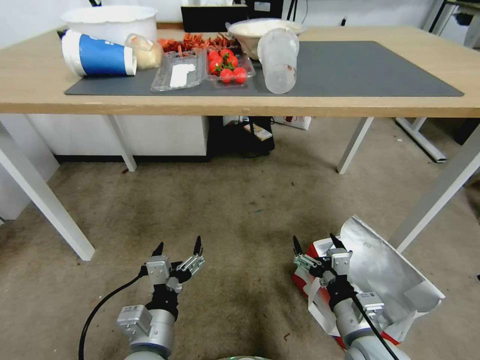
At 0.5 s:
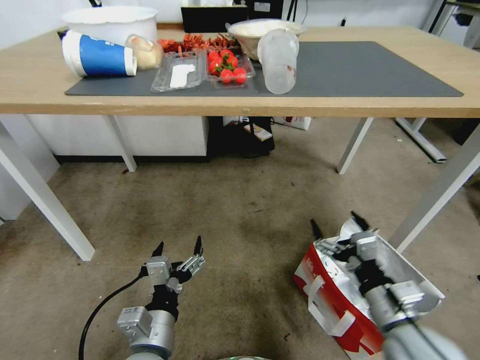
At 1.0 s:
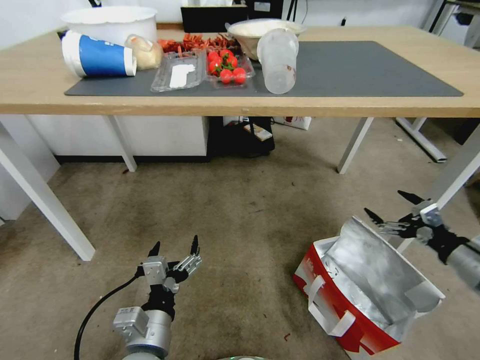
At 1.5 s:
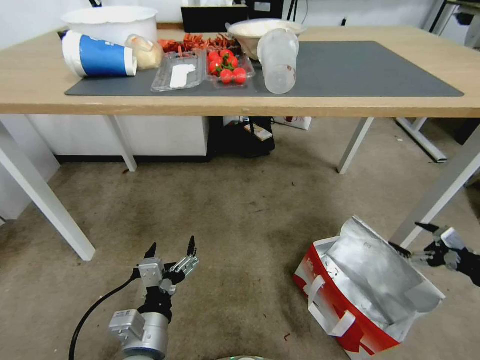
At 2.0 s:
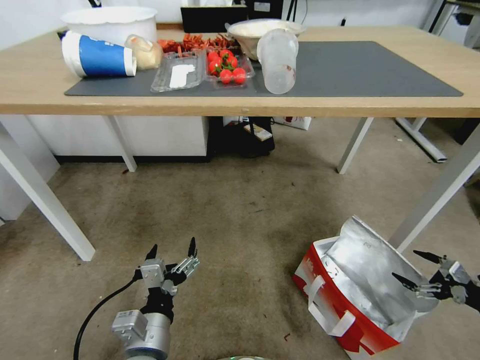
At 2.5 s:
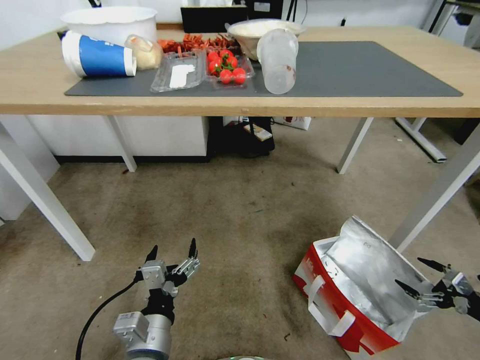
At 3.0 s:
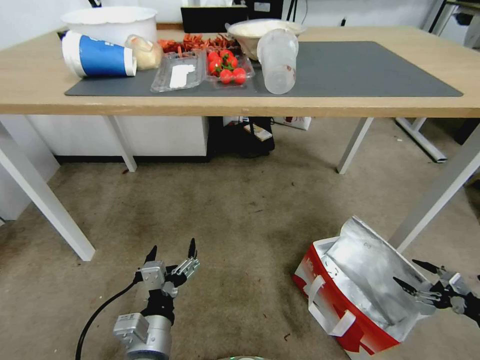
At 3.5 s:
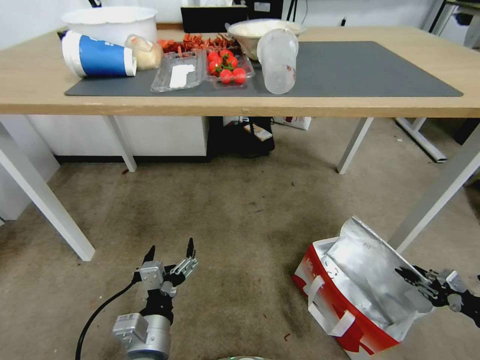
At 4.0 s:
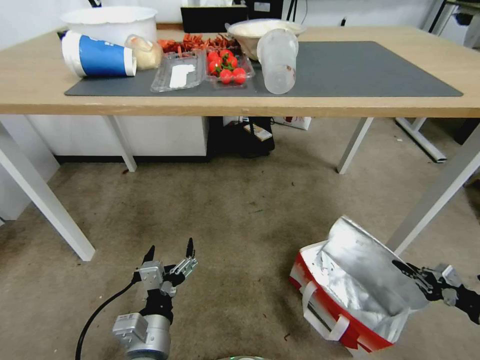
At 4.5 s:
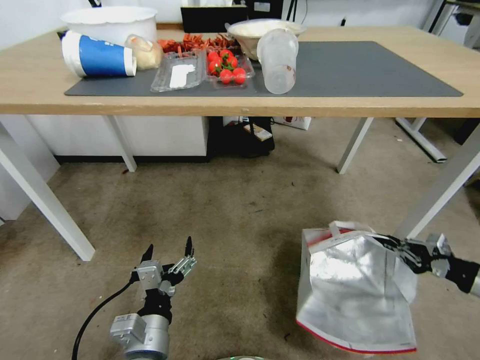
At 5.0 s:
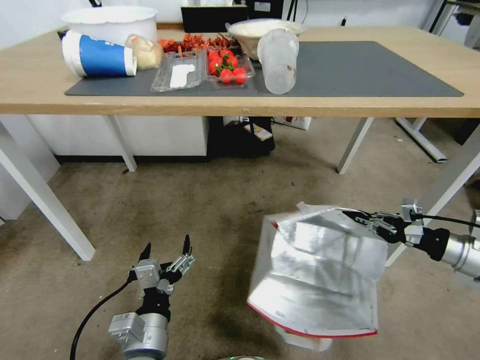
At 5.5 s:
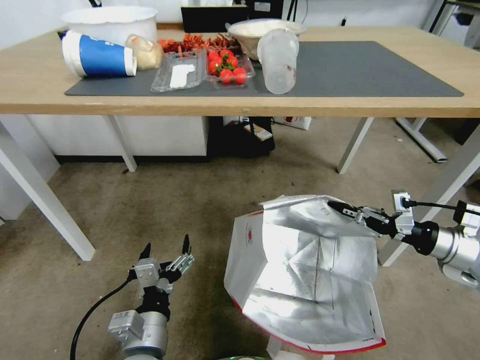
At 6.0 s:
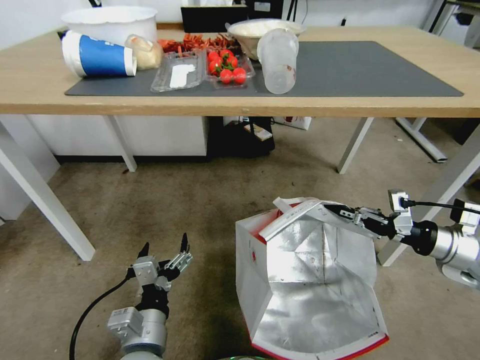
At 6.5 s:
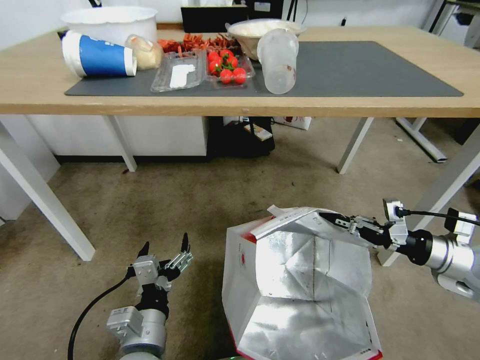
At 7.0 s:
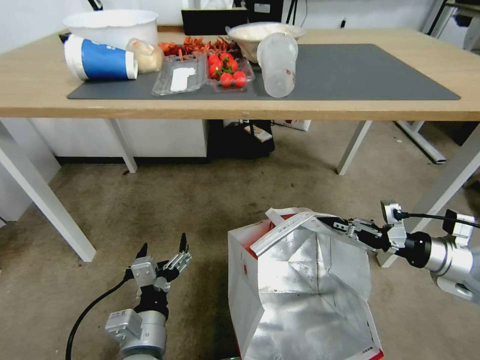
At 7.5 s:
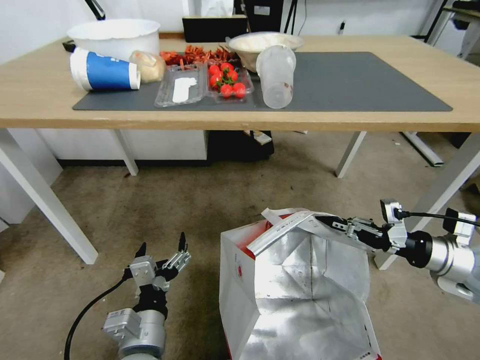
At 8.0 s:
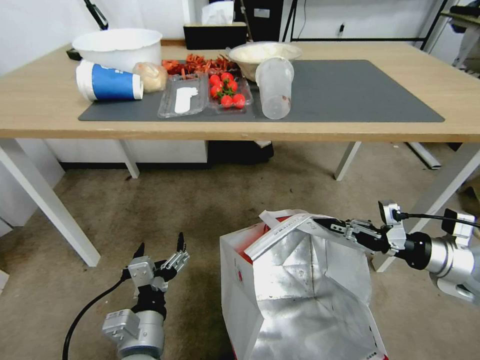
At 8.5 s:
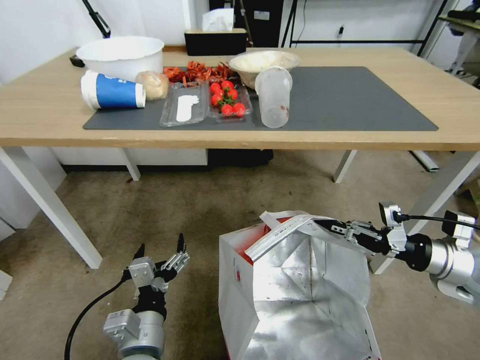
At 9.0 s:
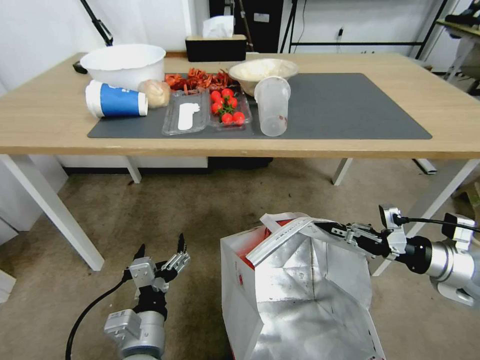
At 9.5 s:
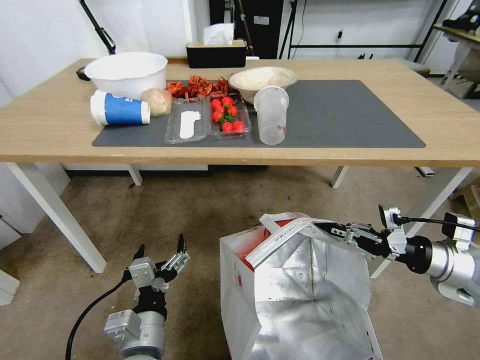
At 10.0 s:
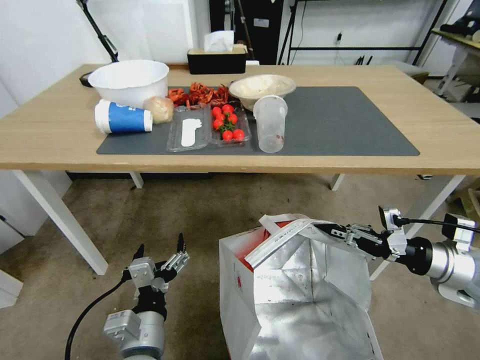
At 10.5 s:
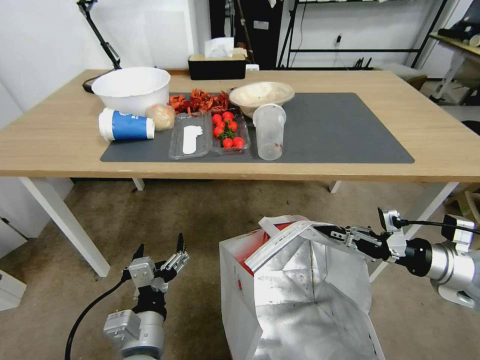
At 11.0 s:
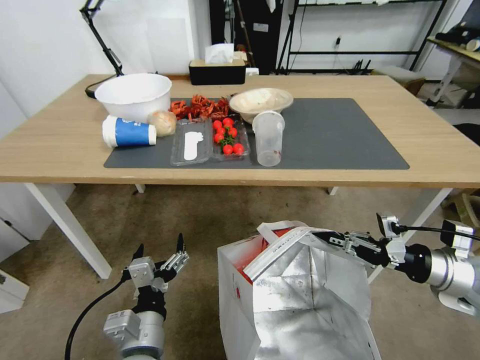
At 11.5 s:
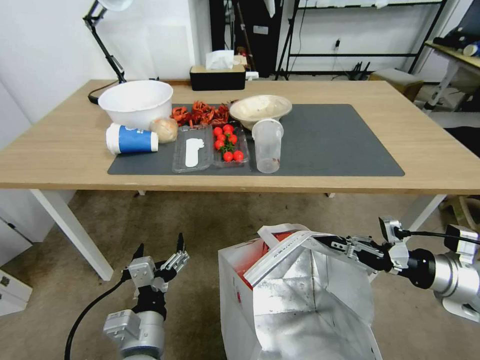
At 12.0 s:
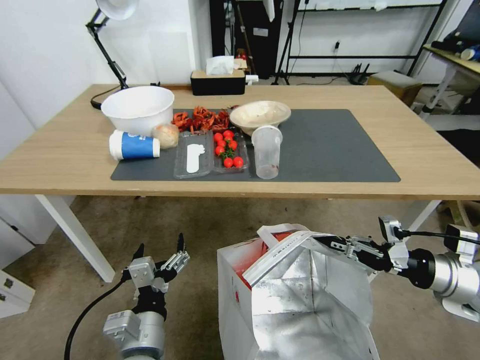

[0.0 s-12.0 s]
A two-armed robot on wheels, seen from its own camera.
Task of the whole recording: Pick up the food delivery bag from the floor and place it on the table.
0.0 to 2.0 s: The right gripper moves to the right, some 35 cm.
2.0 to 4.0 s: The right gripper closes its fingers.
4.0 to 6.0 s: The right gripper shifts roughly 20 cm to the left, upward and forward.

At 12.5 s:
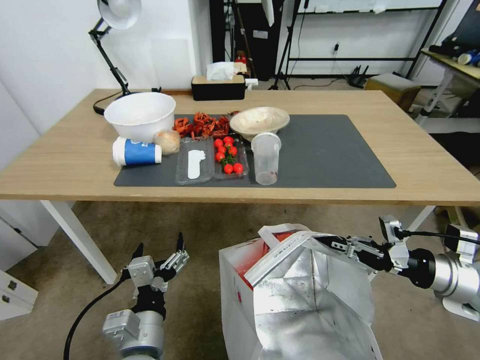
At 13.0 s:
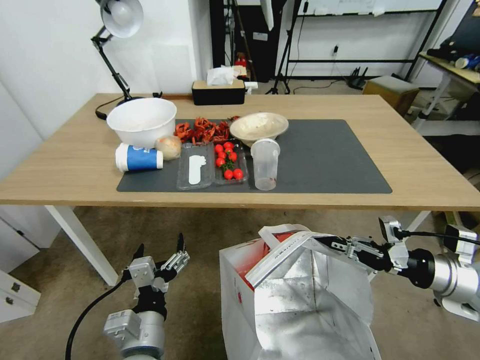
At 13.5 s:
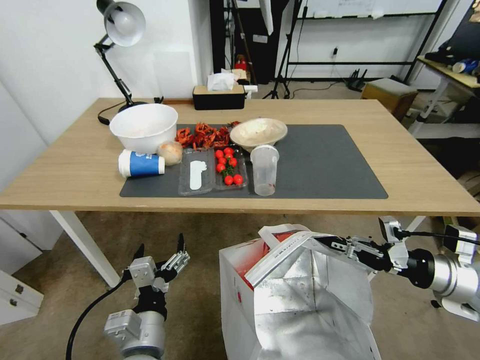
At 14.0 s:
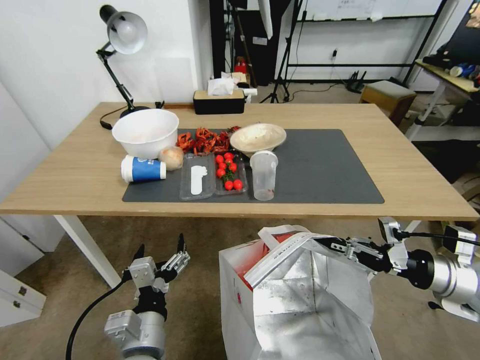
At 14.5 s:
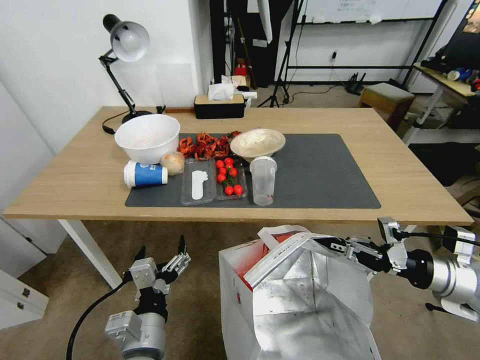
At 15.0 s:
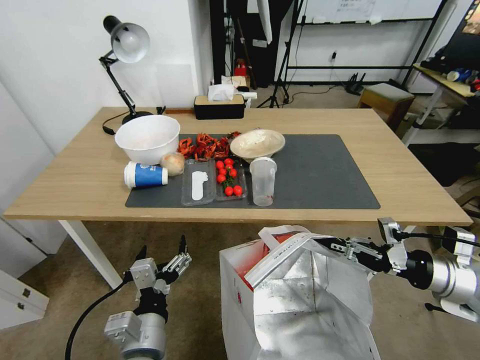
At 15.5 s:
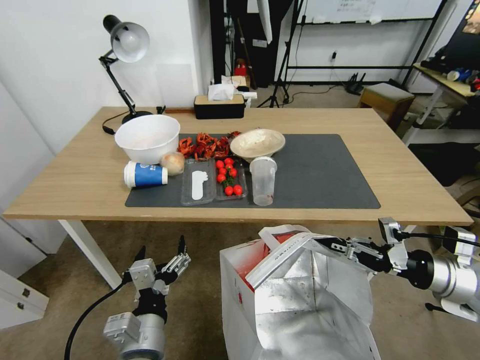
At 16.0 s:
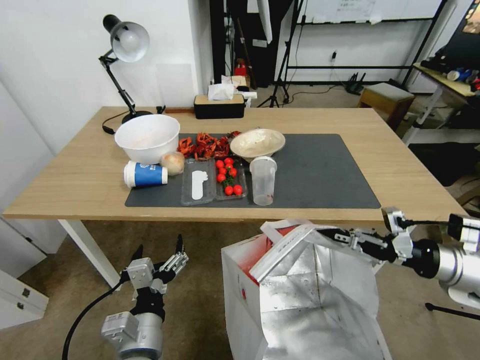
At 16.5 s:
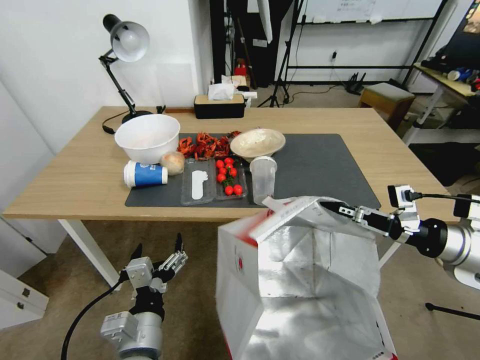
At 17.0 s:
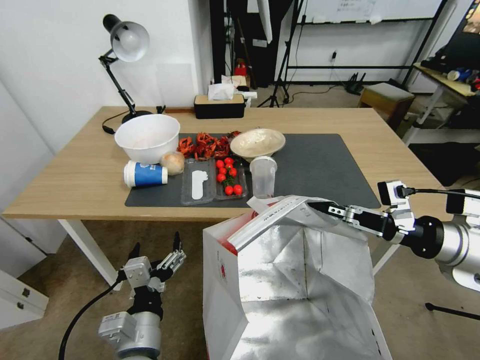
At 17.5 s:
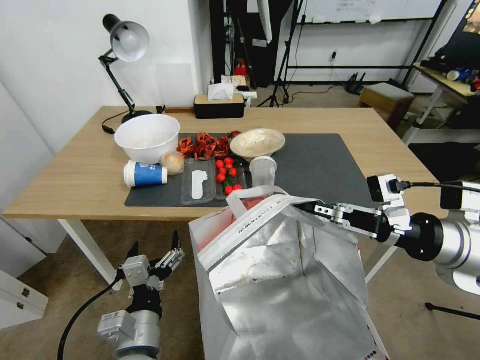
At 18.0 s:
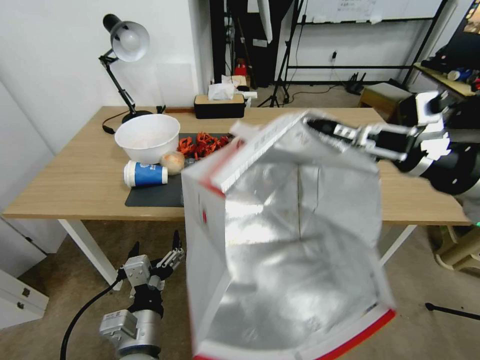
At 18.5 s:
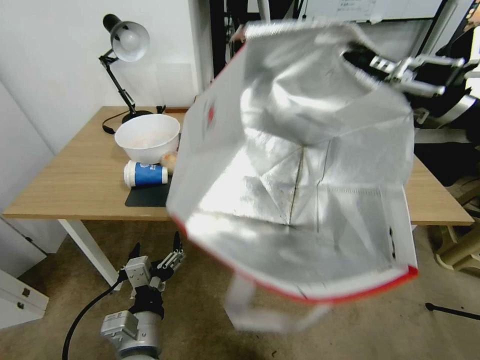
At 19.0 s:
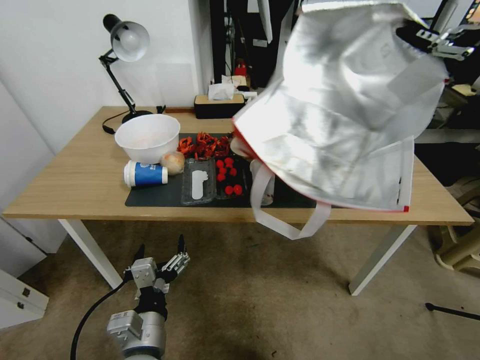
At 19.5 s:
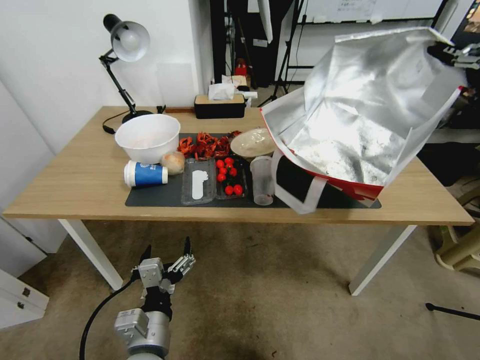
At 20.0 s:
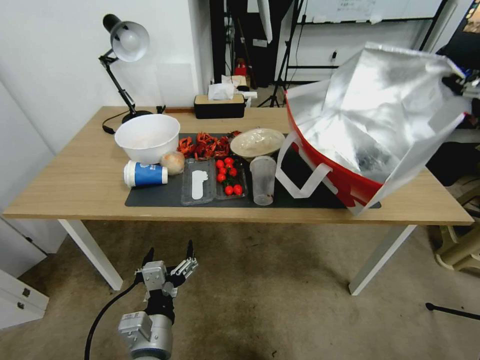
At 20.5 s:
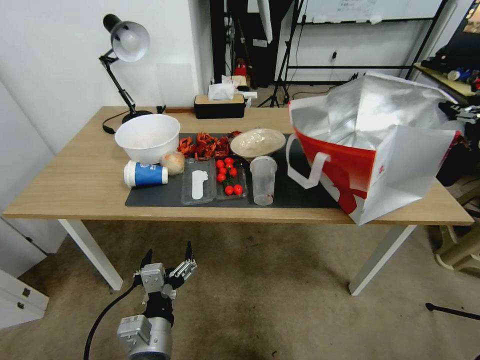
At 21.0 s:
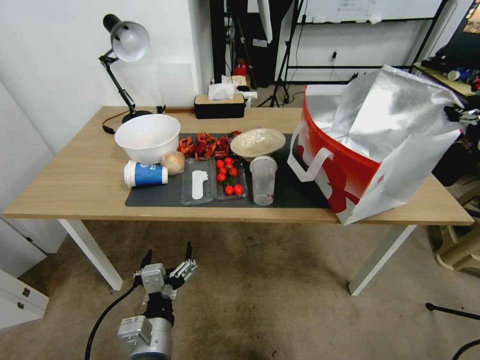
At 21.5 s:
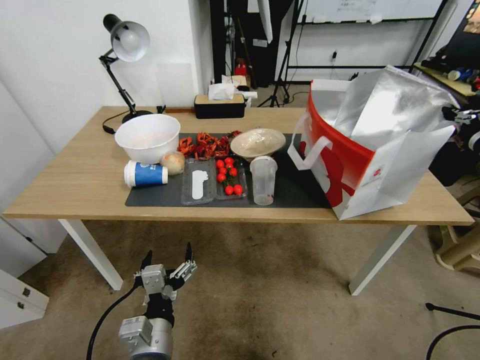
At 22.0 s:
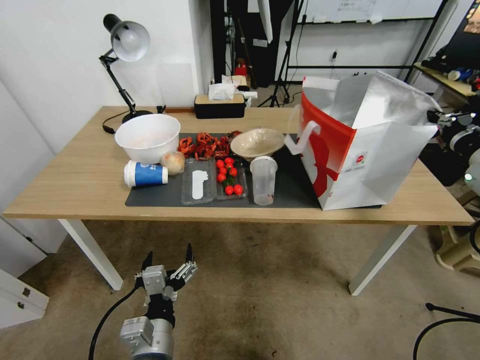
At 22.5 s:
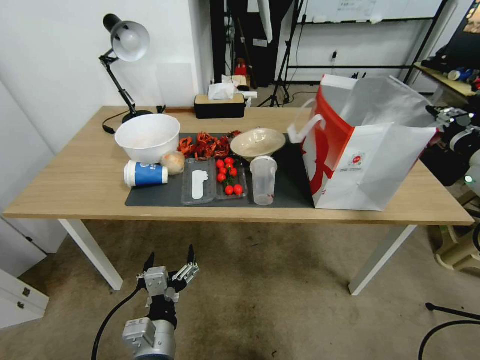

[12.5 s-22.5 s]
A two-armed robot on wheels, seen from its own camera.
Task of the whole recording: Pick up the food delivery bag from the floor and place it on the table.
14.5 to 16.5 s: The right gripper shifts about 5 cm upward.
16.5 to 18.5 s: The right gripper travels upward by some 20 cm.
18.5 to 20.5 s: The right gripper heads to the right and downward, covering some 10 cm.
20.5 to 22.5 s: The right gripper changes place by approximately 5 cm.

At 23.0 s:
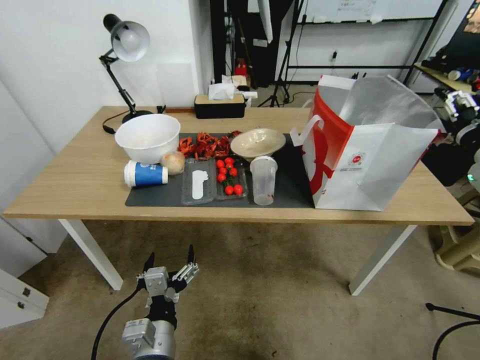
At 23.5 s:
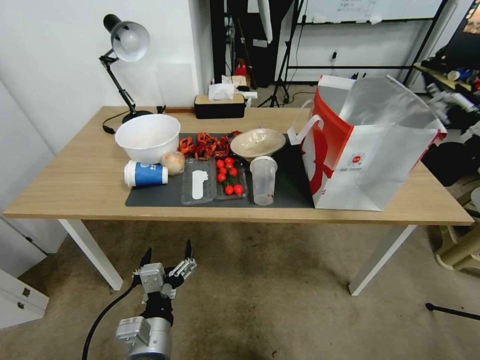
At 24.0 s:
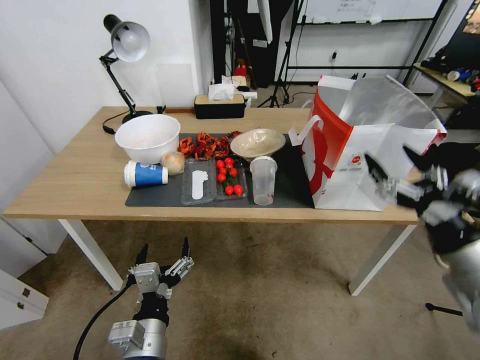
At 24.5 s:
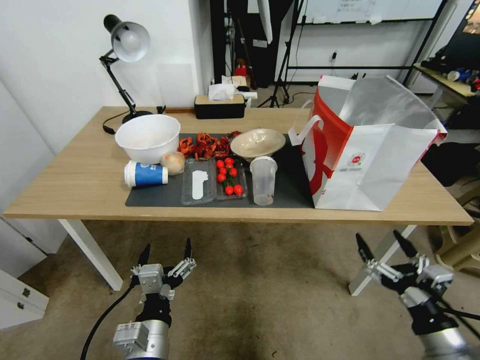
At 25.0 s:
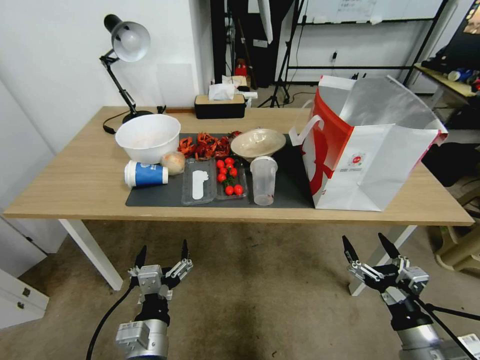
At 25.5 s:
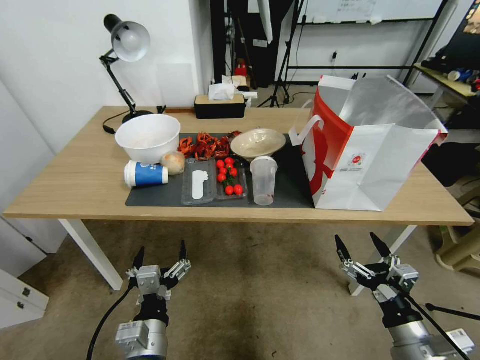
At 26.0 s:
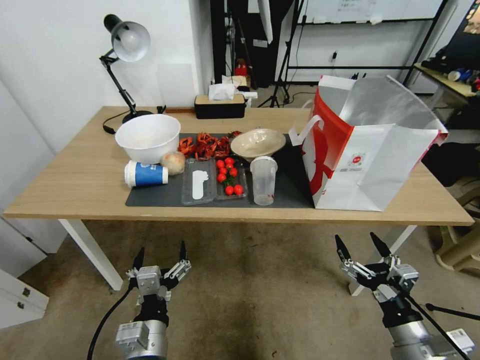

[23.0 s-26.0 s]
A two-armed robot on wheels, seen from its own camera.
Task of the whole recording: Pick up the food delivery bag from the floor and place it on the table.
23.0 to 24.5 s: The right gripper goes about 30 cm downward and backward.
24.5 to 26.0 s: The right gripper moves roughly 5 cm.

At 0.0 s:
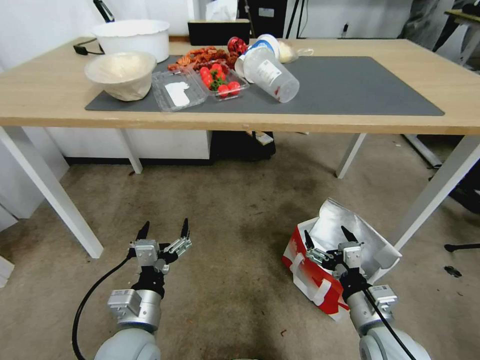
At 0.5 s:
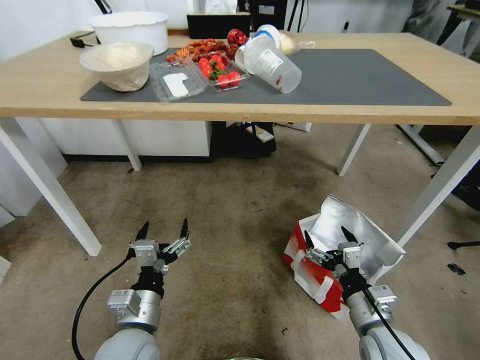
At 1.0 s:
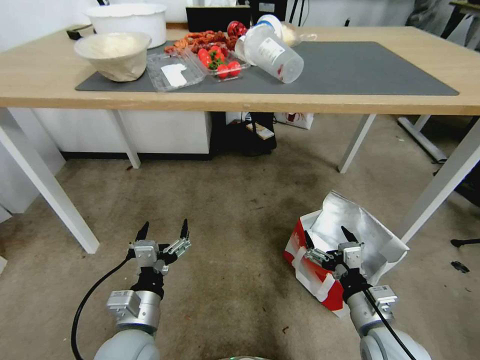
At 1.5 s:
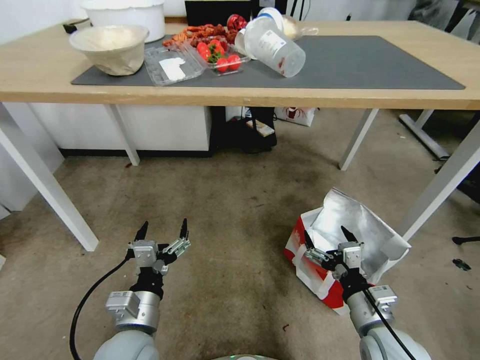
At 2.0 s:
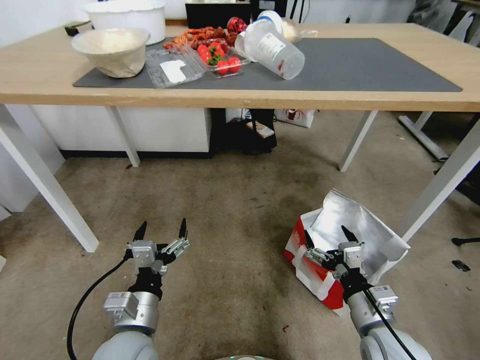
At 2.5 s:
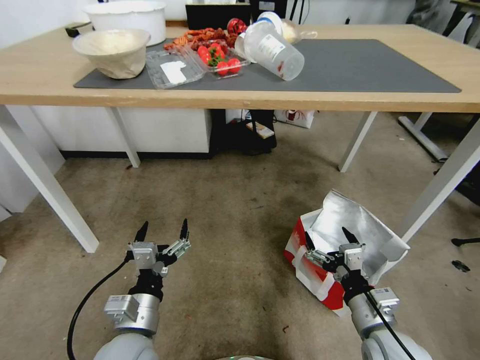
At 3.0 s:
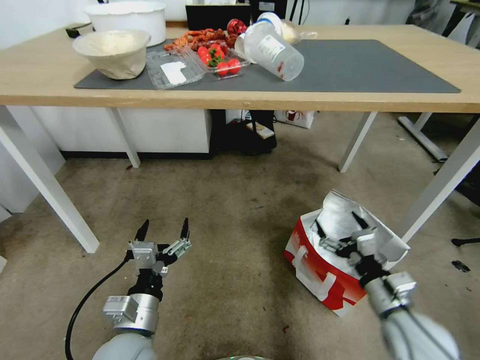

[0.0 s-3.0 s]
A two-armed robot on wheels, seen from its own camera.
Task of the whole recording: Pick up the food delivery bag from the floor and place it on the table.
1.5 to 3.0 s: The grippers move only a little.
